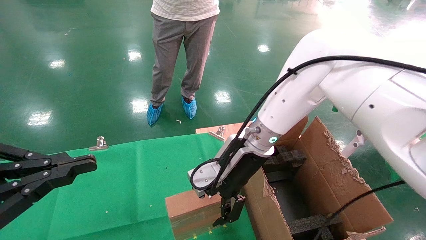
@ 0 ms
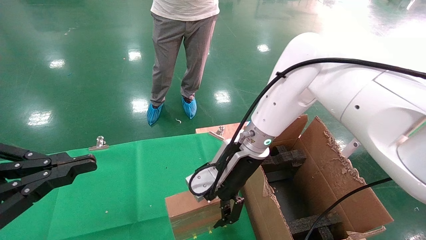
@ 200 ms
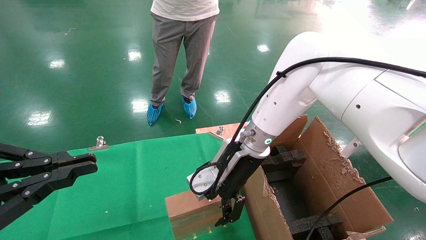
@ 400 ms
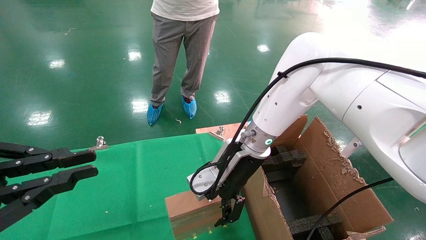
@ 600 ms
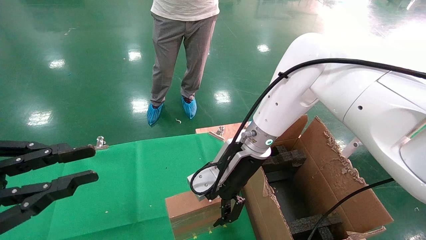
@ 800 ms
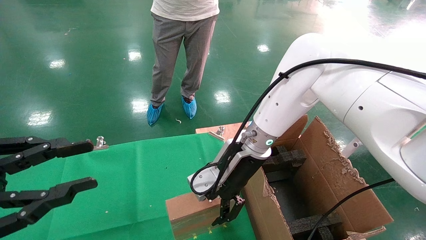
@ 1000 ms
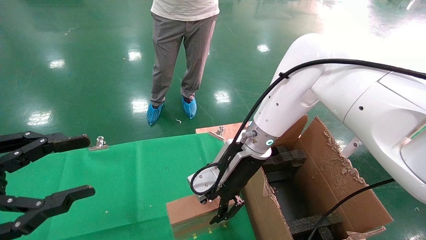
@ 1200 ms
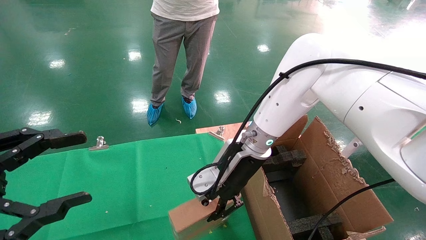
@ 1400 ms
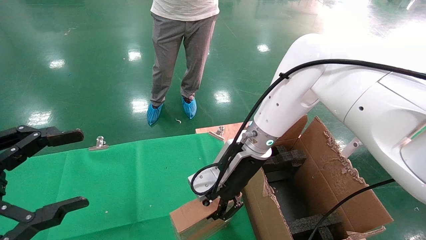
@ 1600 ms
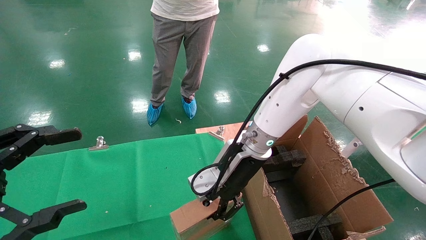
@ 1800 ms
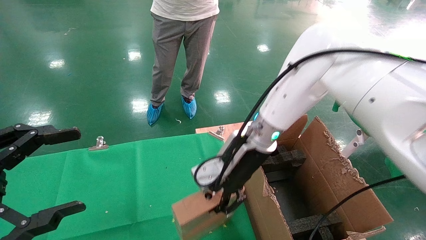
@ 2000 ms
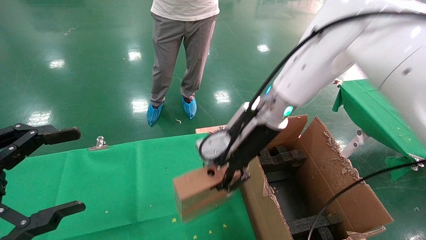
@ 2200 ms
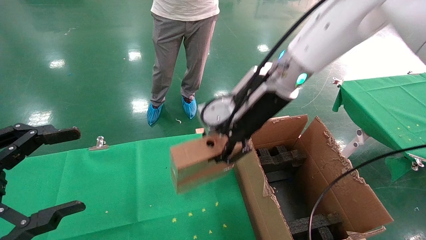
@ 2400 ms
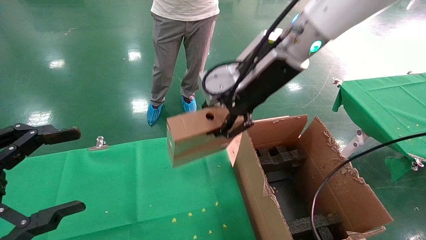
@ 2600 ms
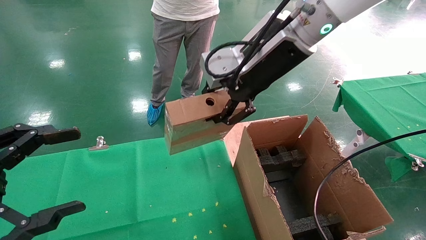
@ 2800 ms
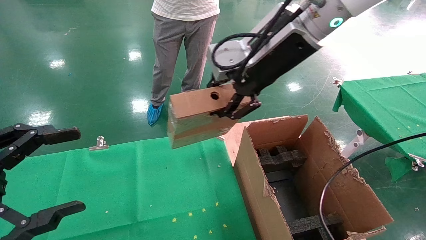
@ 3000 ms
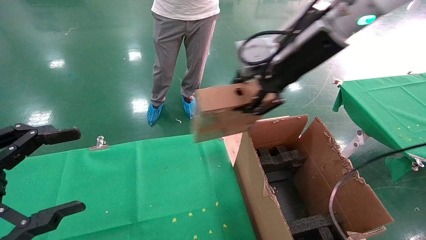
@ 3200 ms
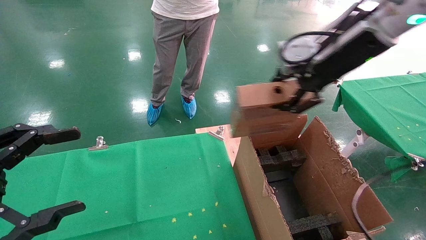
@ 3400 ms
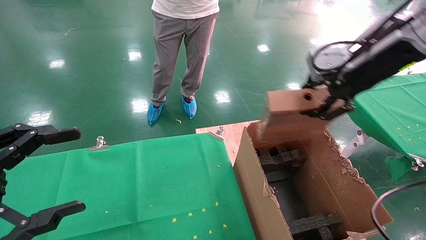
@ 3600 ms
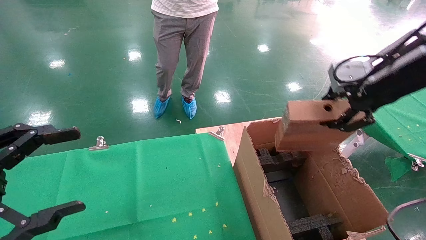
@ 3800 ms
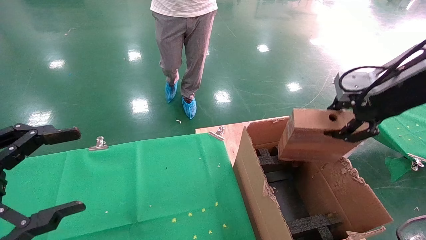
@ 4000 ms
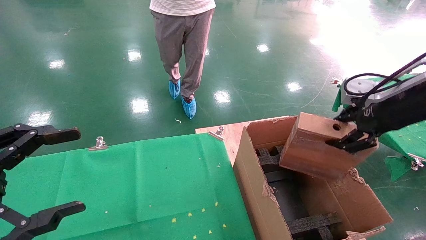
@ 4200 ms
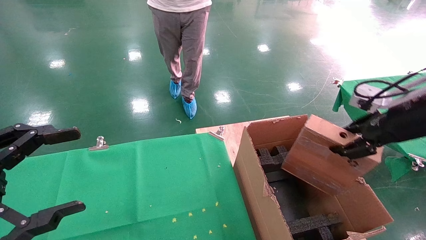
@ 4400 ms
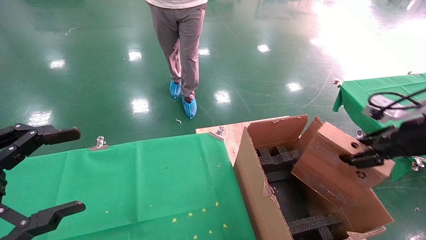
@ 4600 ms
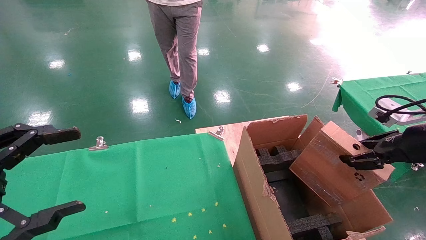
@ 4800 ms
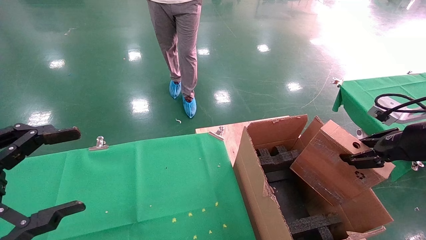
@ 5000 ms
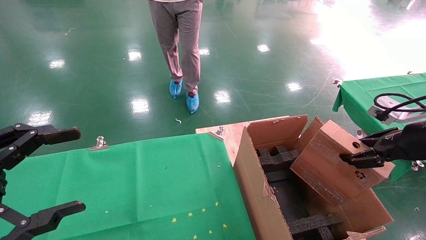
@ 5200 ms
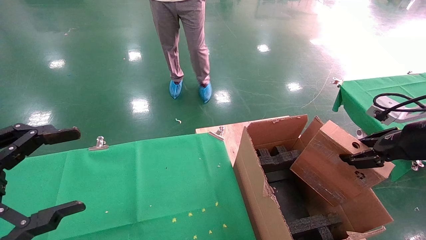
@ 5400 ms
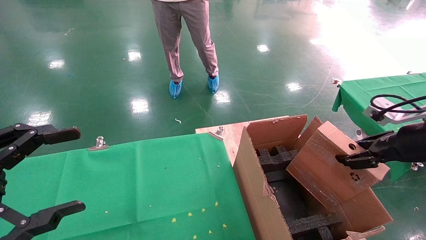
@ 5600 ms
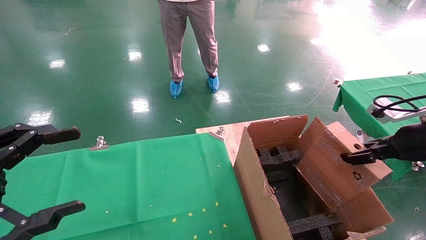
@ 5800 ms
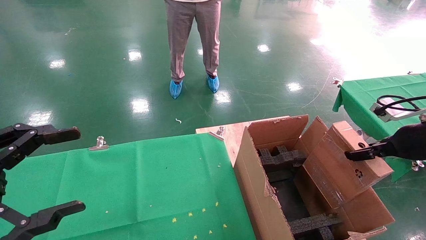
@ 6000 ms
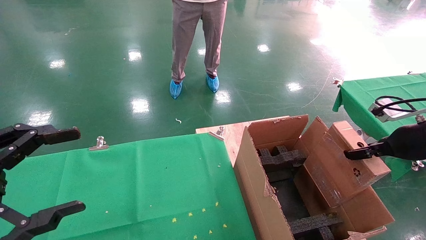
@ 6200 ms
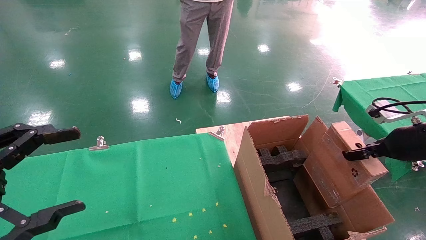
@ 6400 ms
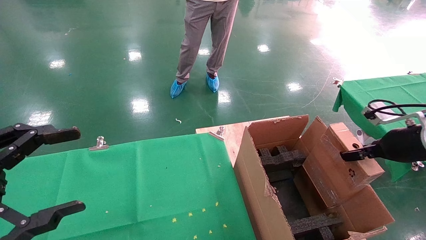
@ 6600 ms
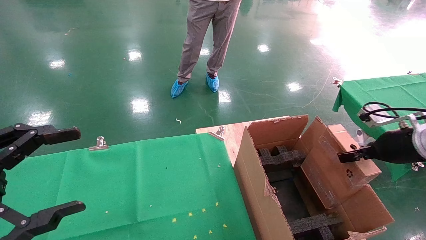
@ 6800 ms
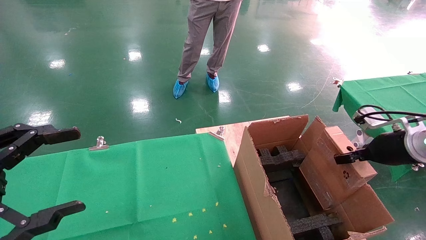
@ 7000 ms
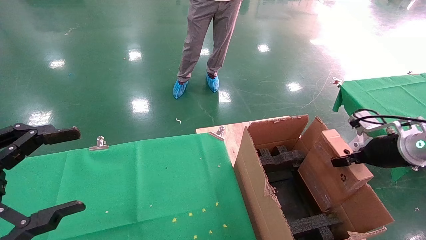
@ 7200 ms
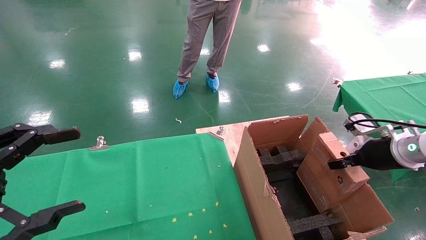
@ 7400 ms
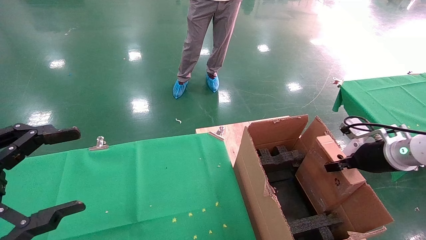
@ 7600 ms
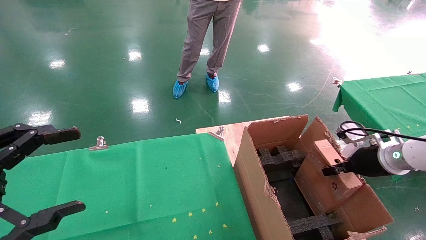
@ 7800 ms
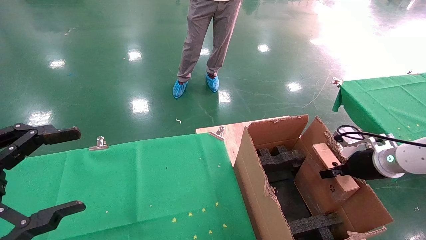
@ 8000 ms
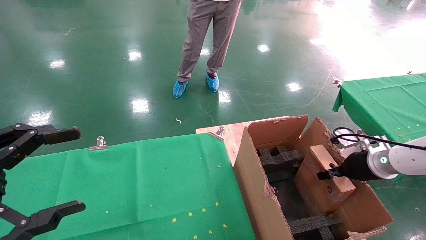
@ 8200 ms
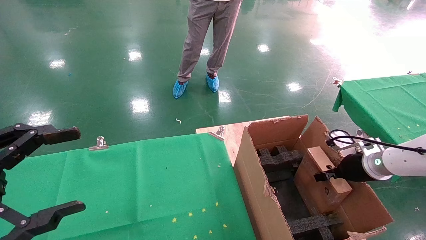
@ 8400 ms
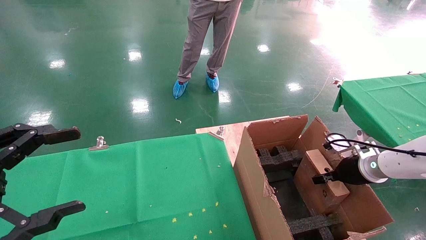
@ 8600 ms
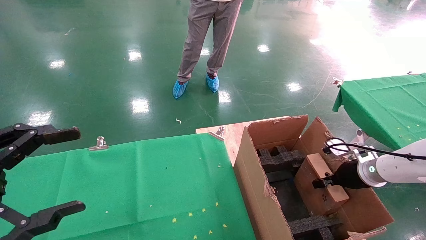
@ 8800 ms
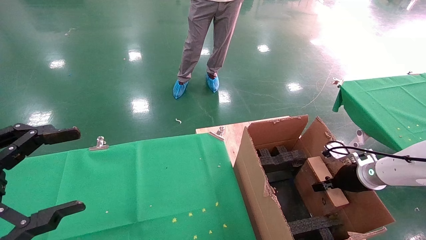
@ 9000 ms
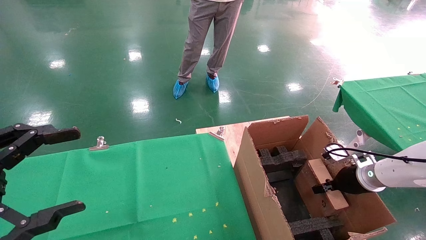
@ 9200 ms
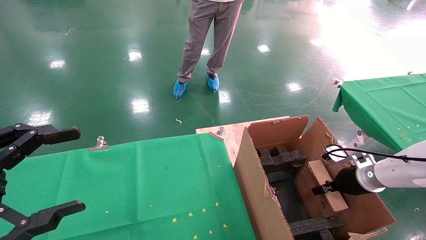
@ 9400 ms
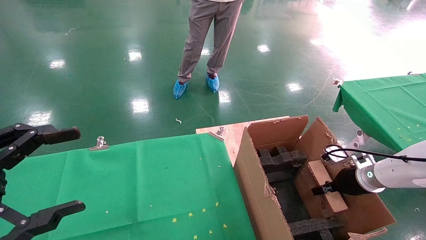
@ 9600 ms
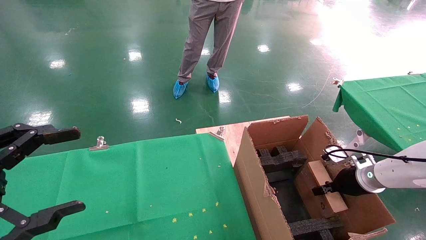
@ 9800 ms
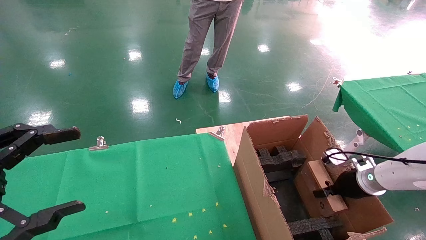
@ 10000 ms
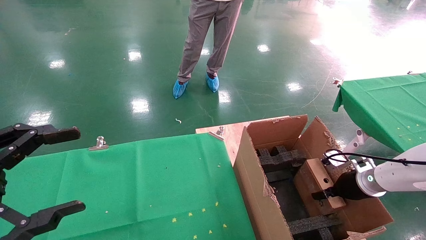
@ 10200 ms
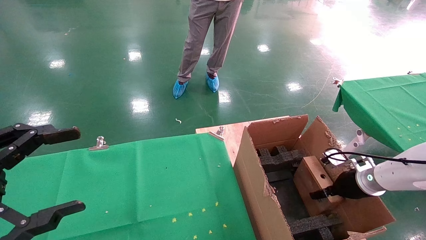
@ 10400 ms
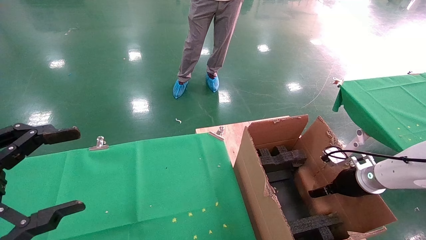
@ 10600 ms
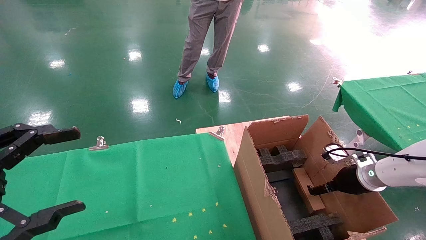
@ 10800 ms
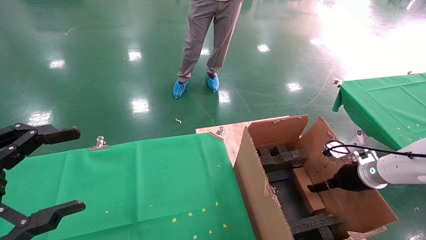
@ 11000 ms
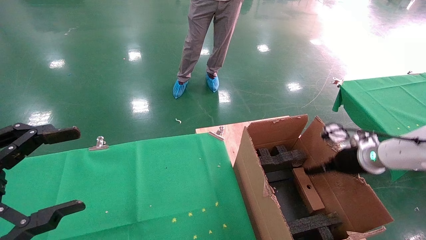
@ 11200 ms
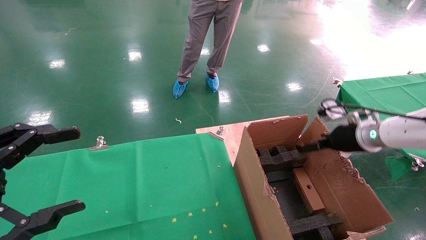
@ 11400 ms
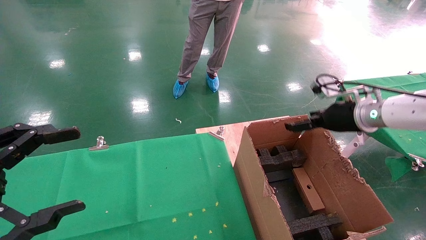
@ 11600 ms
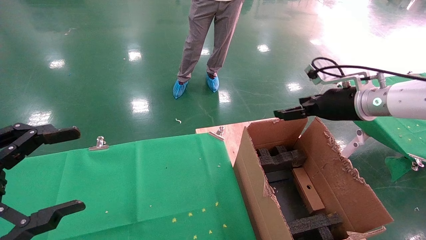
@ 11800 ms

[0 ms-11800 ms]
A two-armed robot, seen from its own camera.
Task of the whole recording: using a robotic arm to pick up a cardboard box and palace it the carton.
Step, 0 ms to 1600 ms: Pick up the mouse and the power cord paper box.
Step, 1800 ms to 10600 ms: Place the mouse and the power cord paper box into the container.
0 ms to 1400 ms: The right gripper closes its fingers, while the left gripper opens up.
1400 ms to 3000 ms: The right gripper moves upward, some 20 cm, and closes up. Meanwhile the left gripper opens up.
3000 ms to 4400 ms: The right gripper goes about 25 cm to the right and downward.
4400 ms to 6000 ms: The right gripper moves downward, about 5 cm.
6000 ms to 7400 ms: The right gripper is displaced downward and forward by roughly 10 cm.
7400 ms to 8800 ms: The right gripper shifts approximately 10 cm downward.
8800 ms to 10400 ms: The right gripper opens its fingers.
10400 ms to 11800 ms: The right gripper moves upward and to the left, roughly 20 cm, and opens up.

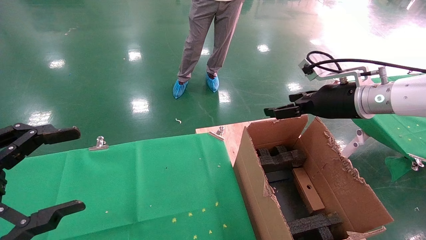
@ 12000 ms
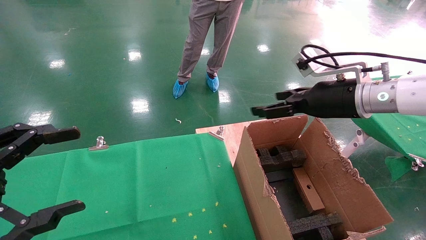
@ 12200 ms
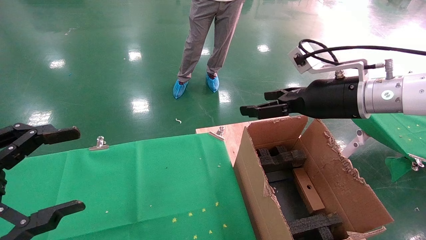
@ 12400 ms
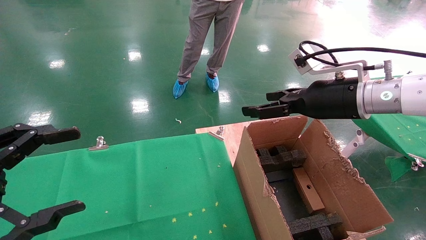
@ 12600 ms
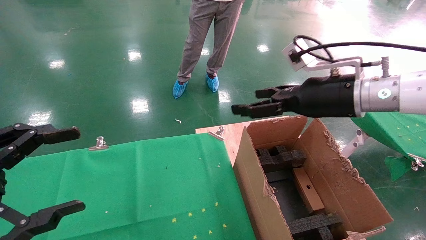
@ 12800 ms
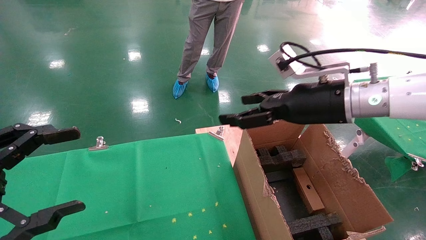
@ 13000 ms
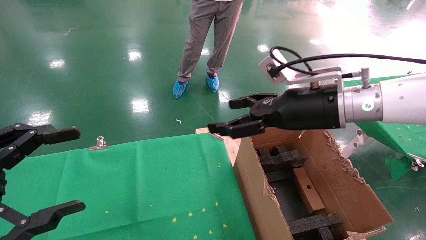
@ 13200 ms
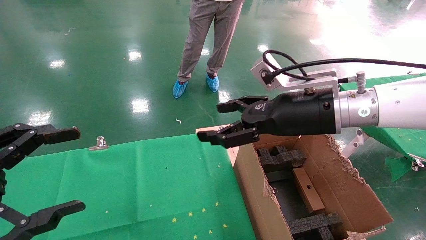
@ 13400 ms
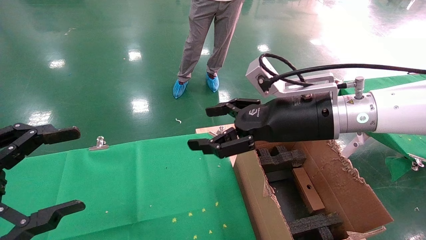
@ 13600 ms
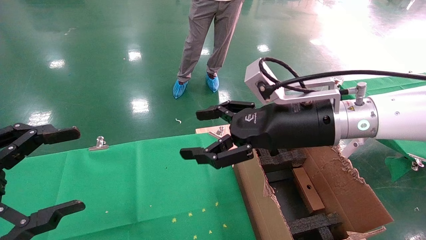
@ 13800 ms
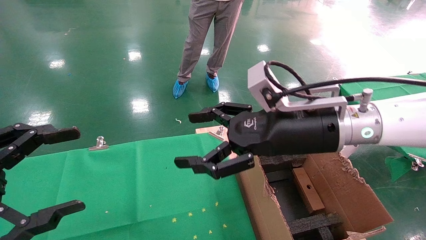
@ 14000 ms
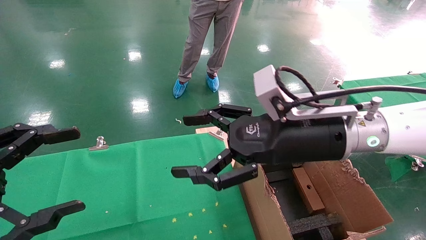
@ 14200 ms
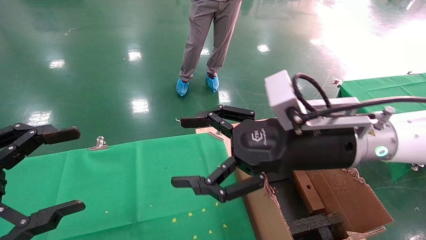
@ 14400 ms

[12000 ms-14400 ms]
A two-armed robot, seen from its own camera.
Task of the whole recording: using a robotic arm to pick up a cardboard box and palace it the carton.
12000 ms to 13200 ms: The right gripper travels to the left by about 10 cm.
13200 ms to 14400 ms: The right gripper is displaced backward by some 5 cm.
